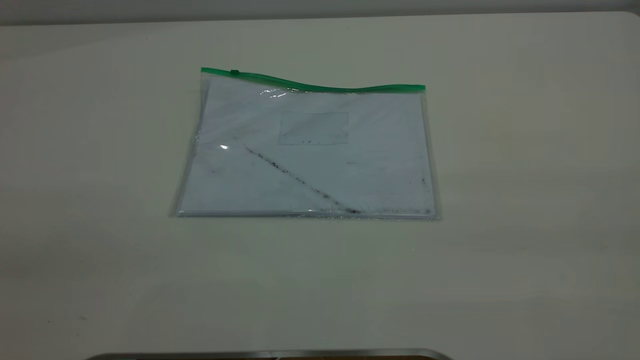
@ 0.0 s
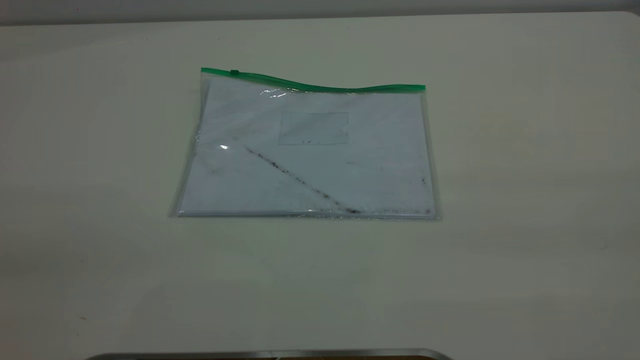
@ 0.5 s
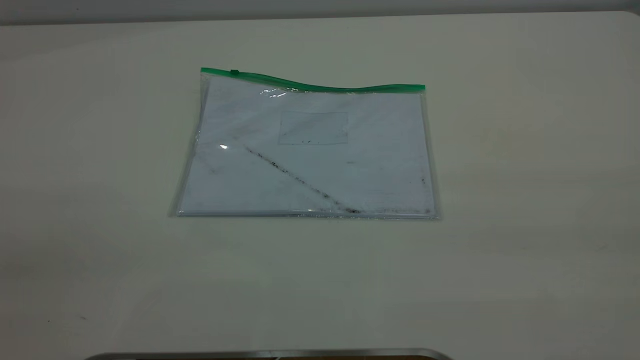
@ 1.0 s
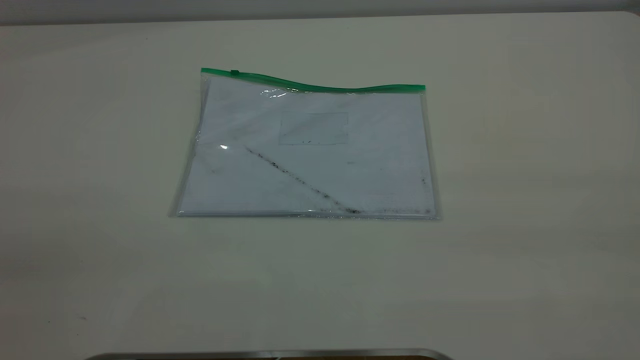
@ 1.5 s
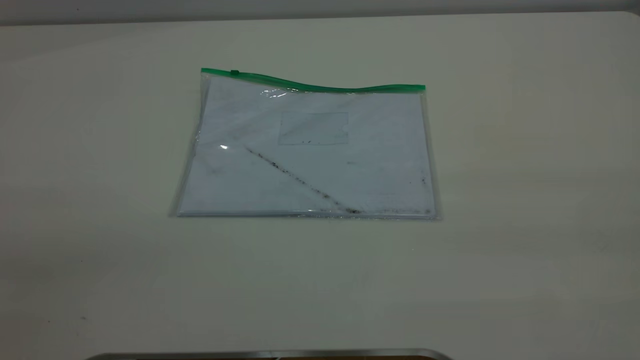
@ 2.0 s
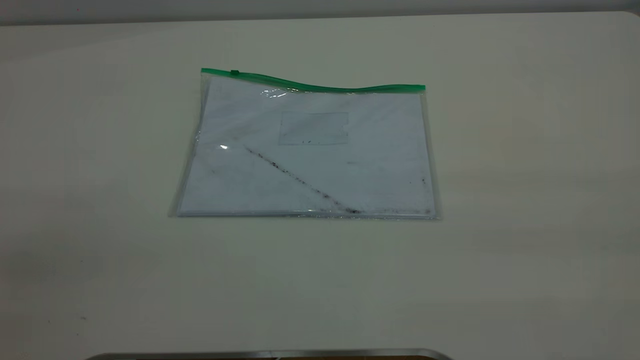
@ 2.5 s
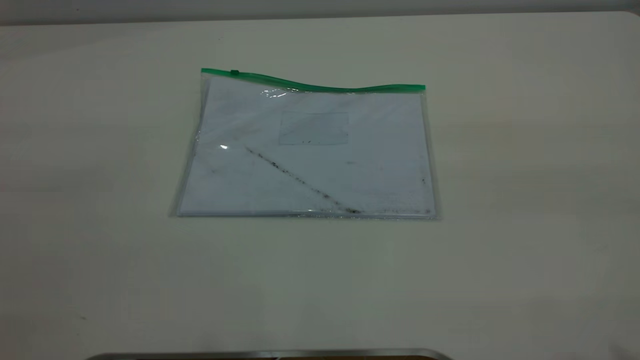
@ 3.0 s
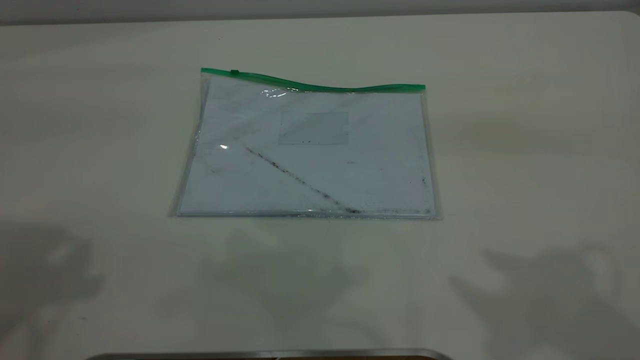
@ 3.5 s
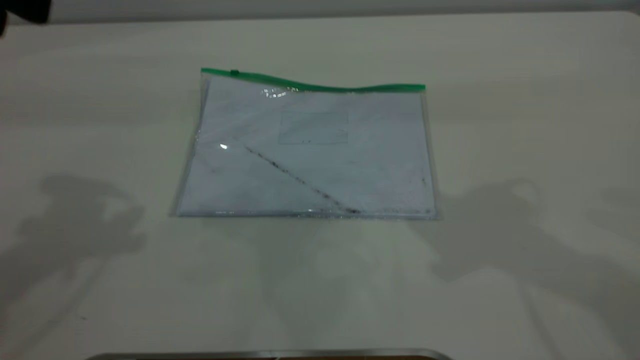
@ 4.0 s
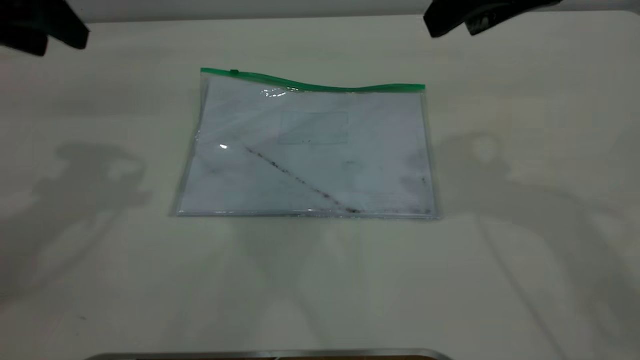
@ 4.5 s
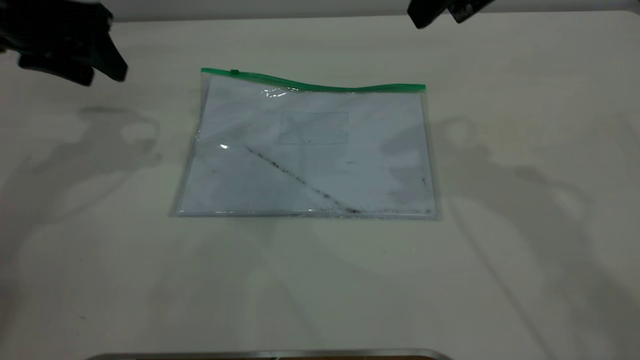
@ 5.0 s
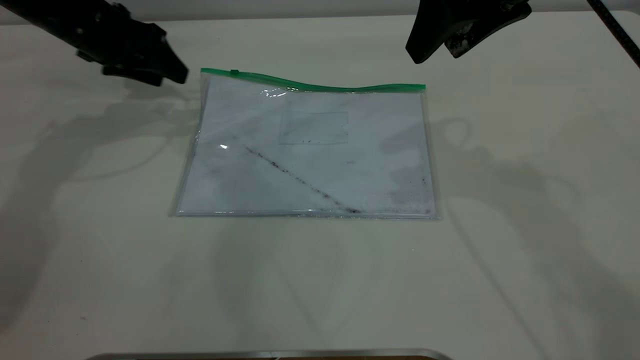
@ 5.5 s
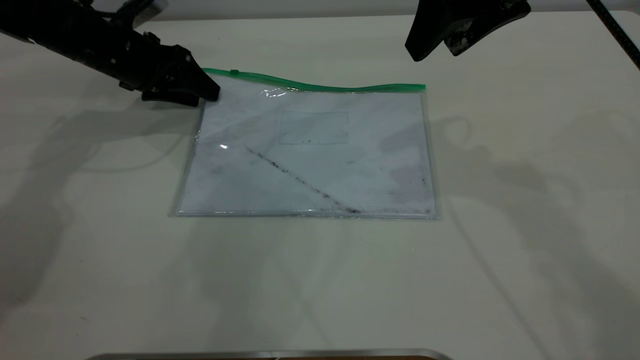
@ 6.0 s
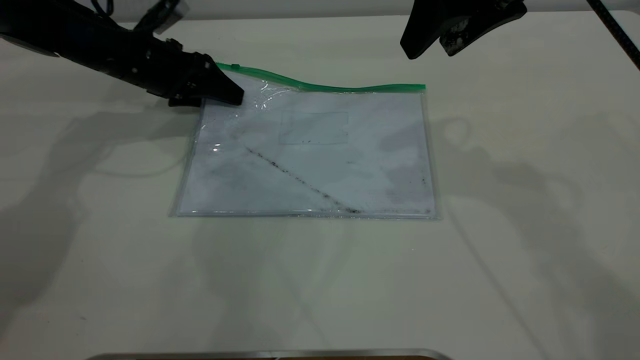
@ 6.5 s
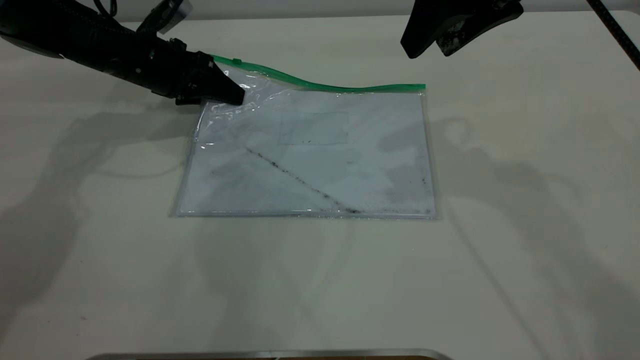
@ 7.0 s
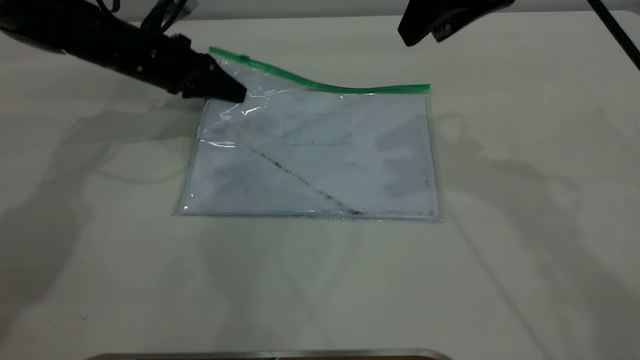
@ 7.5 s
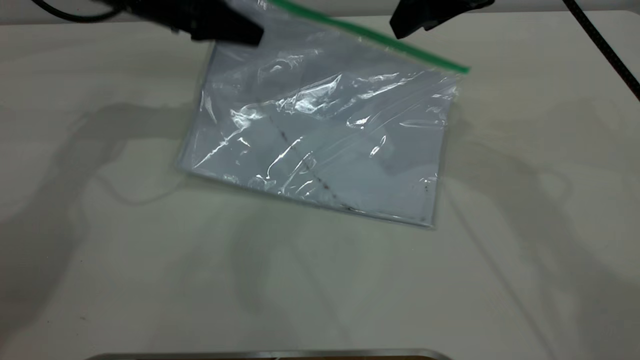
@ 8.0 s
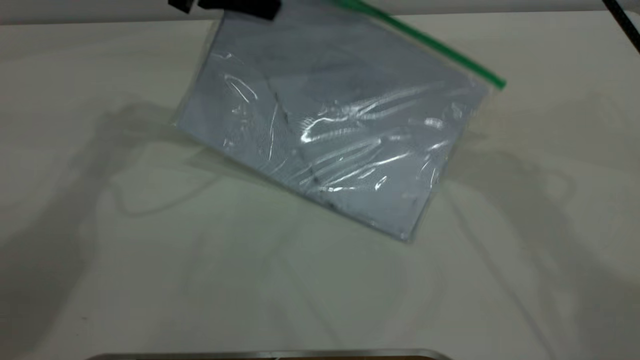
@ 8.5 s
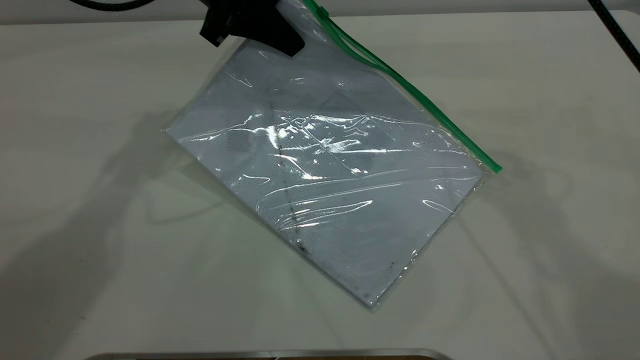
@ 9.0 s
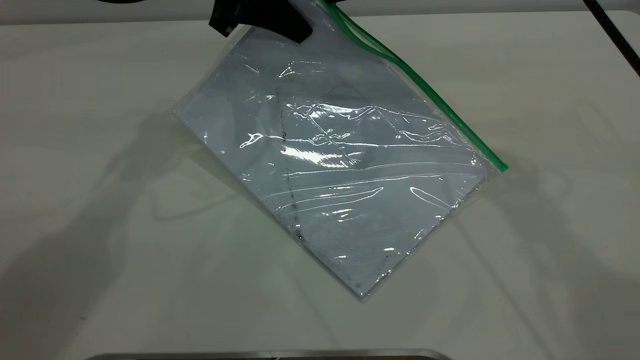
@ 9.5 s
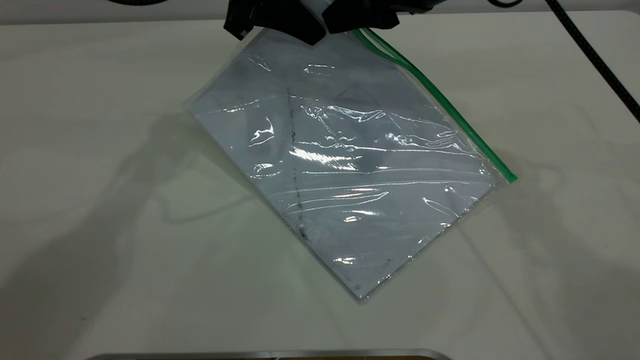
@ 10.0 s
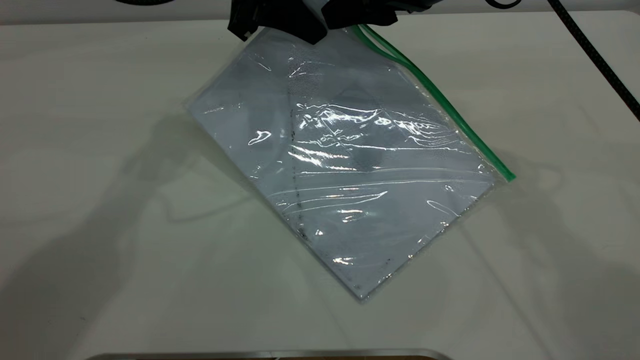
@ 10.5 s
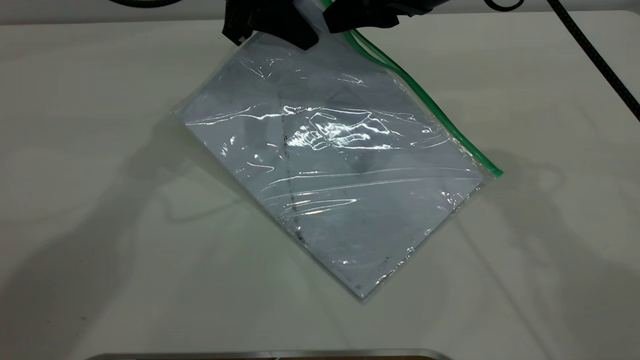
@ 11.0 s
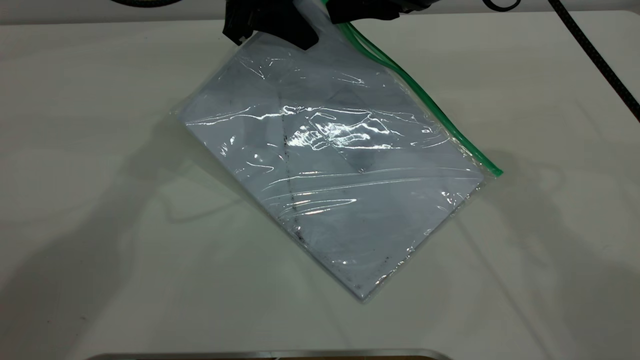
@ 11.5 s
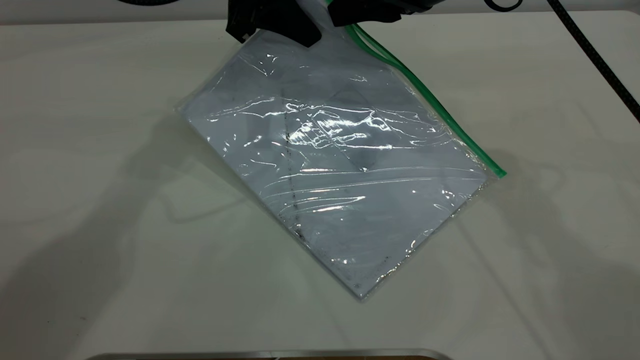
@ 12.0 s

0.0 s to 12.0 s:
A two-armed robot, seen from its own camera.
Step, 0.0 to 6.5 s: Pick up the transparent plastic bag with the left gripper.
0.0 to 2.0 s: The two grippers keep their place.
4.0 to 6.0 s: The right gripper travels forward and downward by some 10 cm, while the left gripper goes some 30 cm downward and forward.
6.0 to 8.0 s: The left gripper is displaced upward and to the right by roughly 10 cm, and closes up.
8.0 to 10.0 s: The left gripper is displaced to the right by roughly 10 cm.
10.0 to 12.0 s: The right gripper closes its fingers.

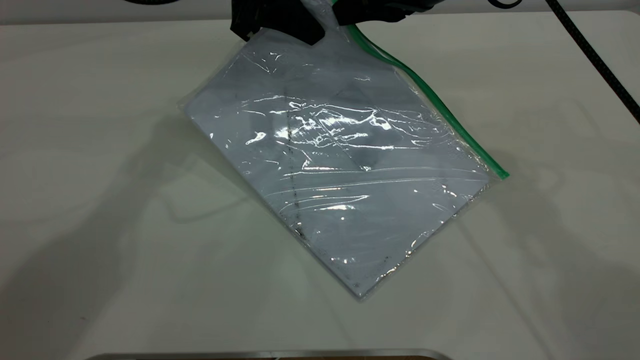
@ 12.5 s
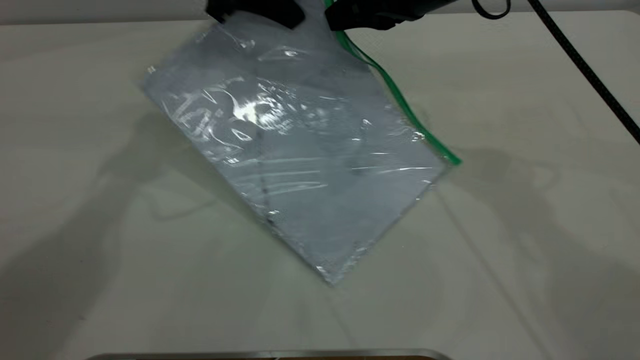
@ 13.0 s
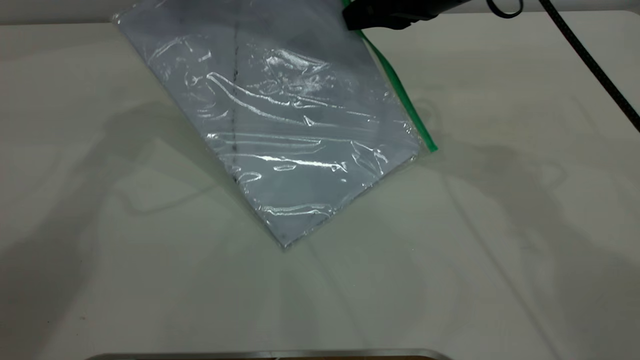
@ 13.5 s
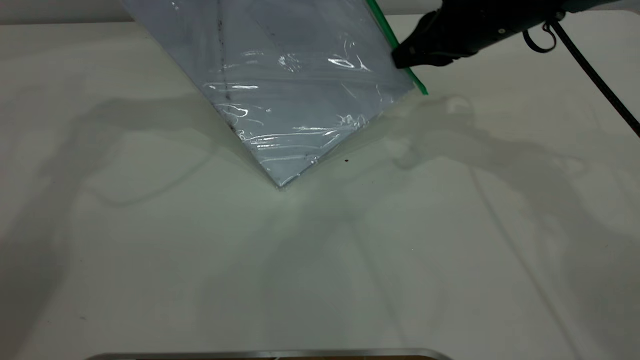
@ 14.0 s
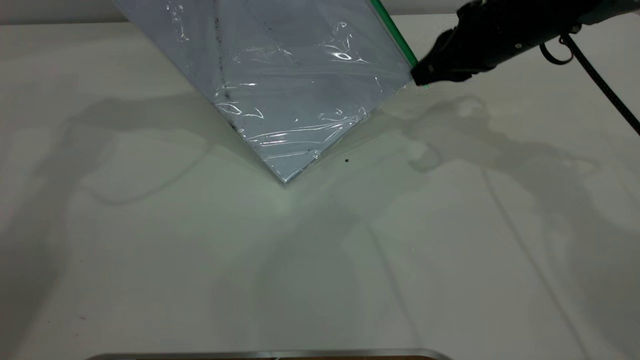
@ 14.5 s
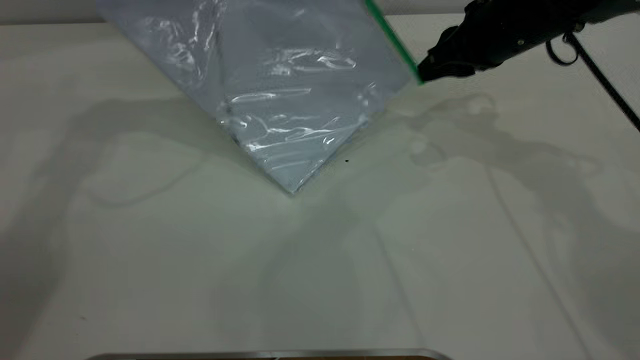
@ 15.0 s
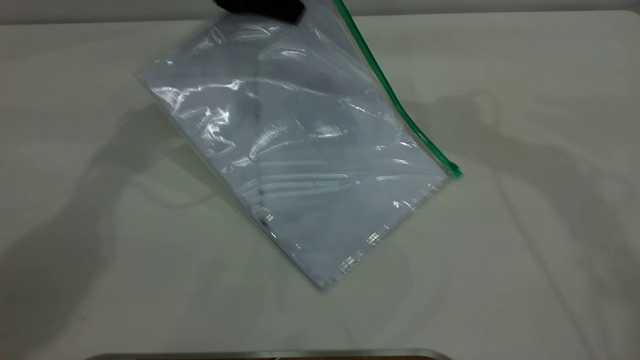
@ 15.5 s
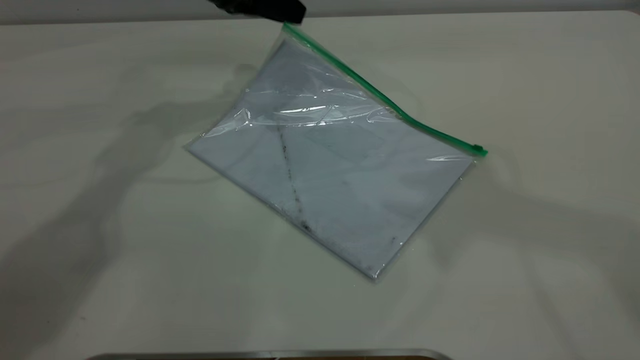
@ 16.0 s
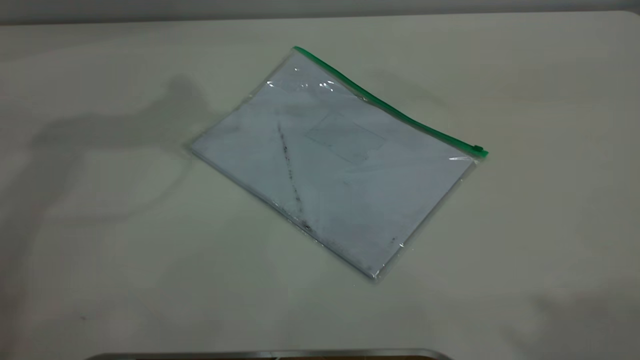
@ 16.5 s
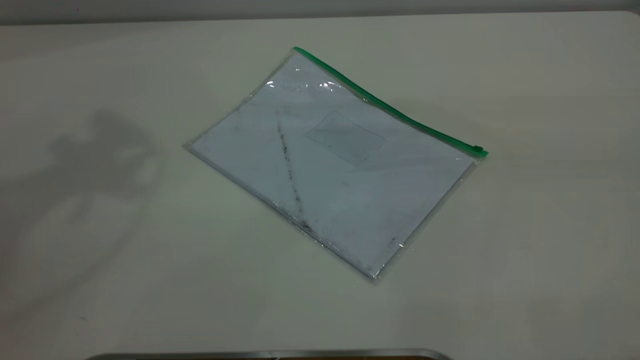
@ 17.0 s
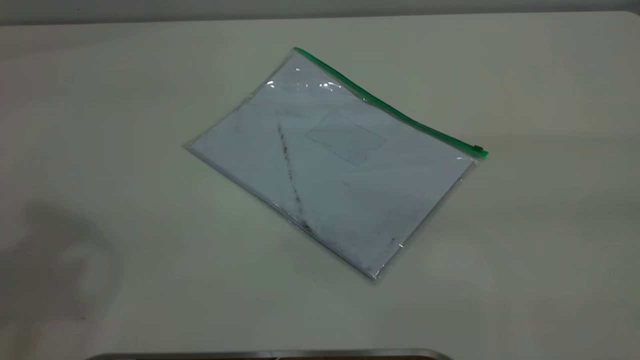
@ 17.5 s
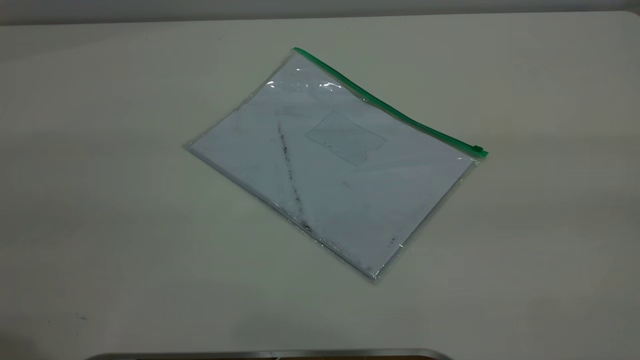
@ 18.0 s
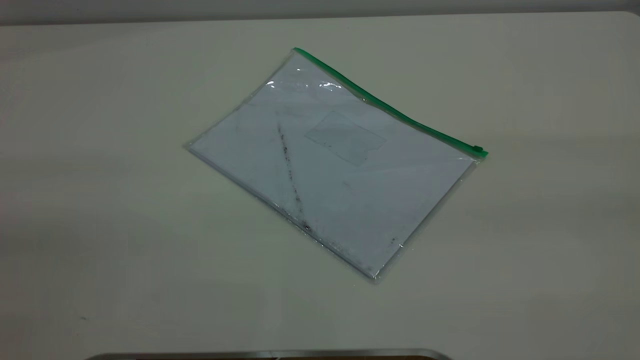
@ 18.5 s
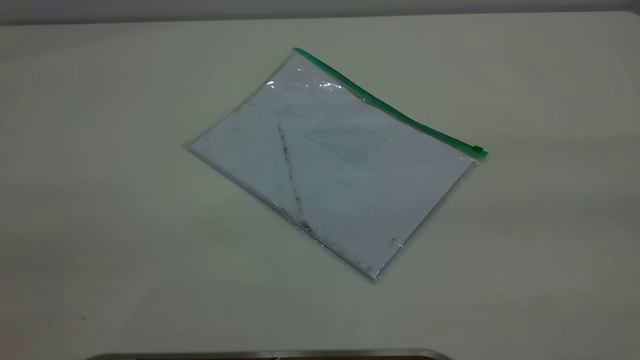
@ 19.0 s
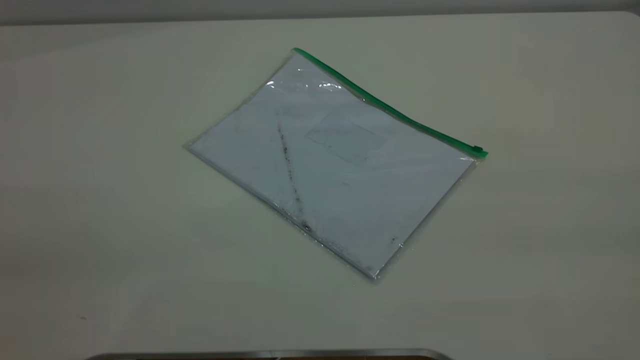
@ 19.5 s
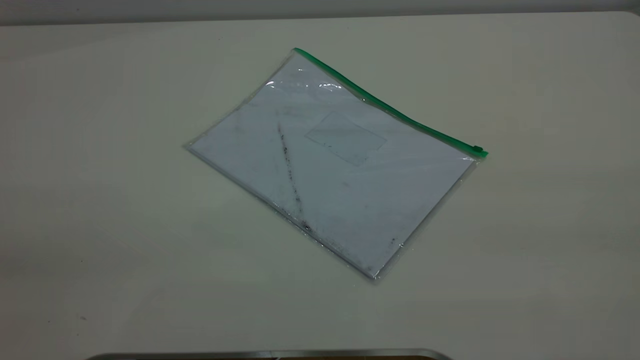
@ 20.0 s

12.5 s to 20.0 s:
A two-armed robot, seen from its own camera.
Step, 12.5 to 15.0 s: Pulling up the zipper on the transparent plastic bag with the right gripper to close it.
Step, 15.5 to 16.0 s: Place the transparent plastic bag.
12.5 to 14.5 s: The right gripper moves downward and to the right, about 10 cm; the left gripper is displaced to the left and upward by some 10 cm.
14.5 to 16.5 s: The left gripper is displaced upward and backward by about 10 cm, and opens up, while the right gripper travels upward and backward by approximately 50 cm, and opens its fingers.
